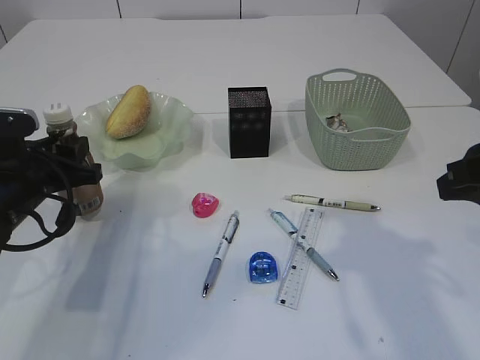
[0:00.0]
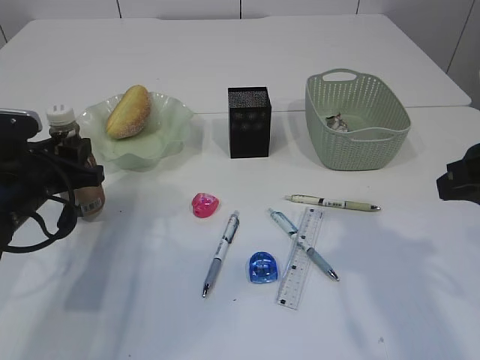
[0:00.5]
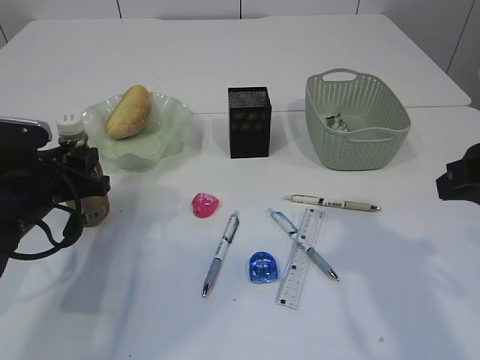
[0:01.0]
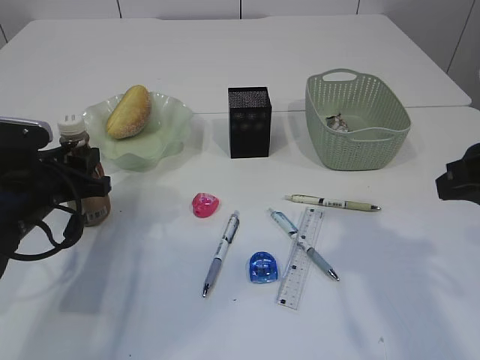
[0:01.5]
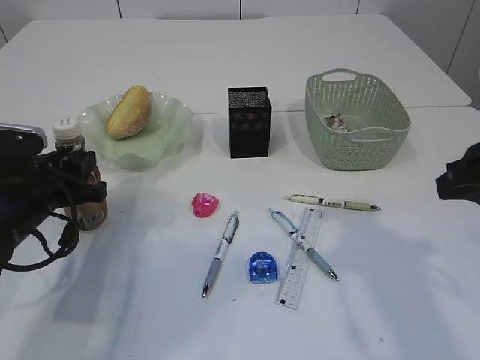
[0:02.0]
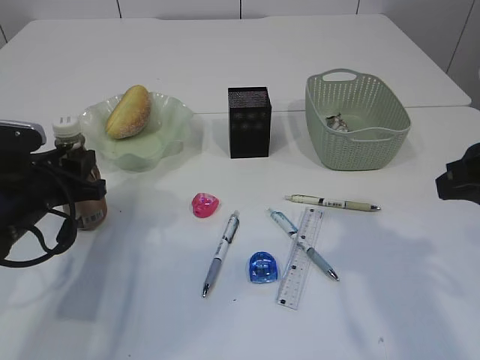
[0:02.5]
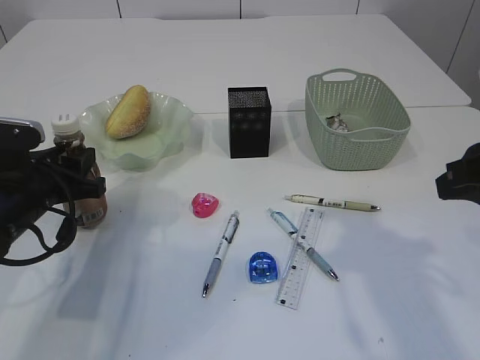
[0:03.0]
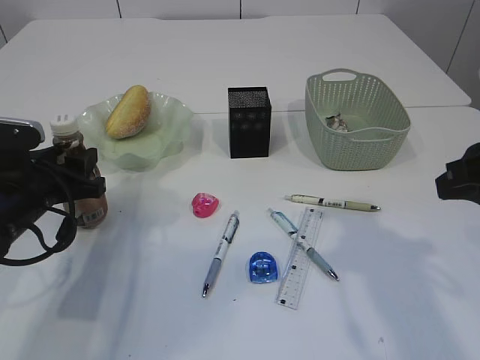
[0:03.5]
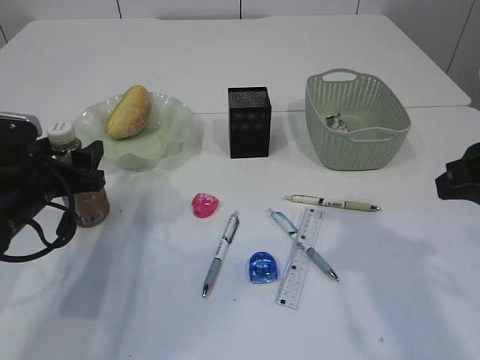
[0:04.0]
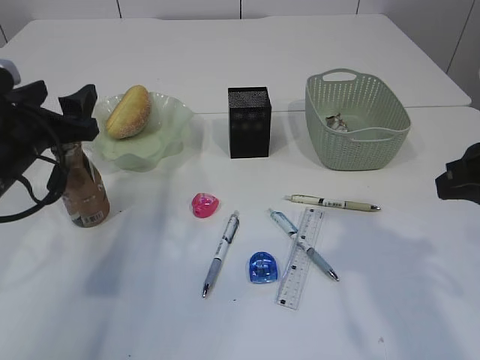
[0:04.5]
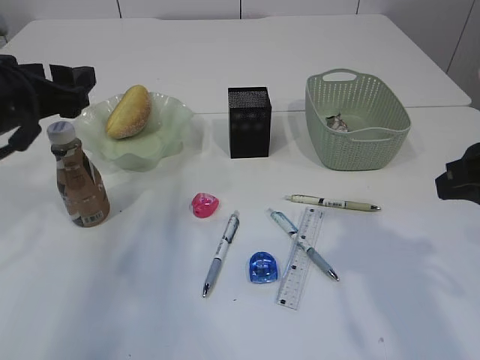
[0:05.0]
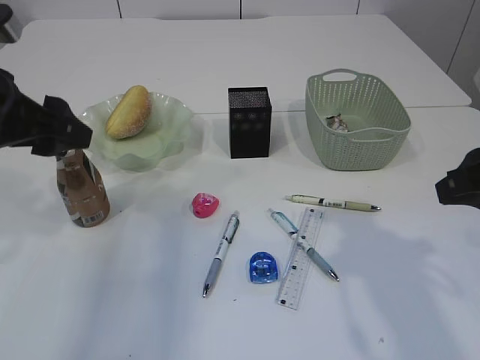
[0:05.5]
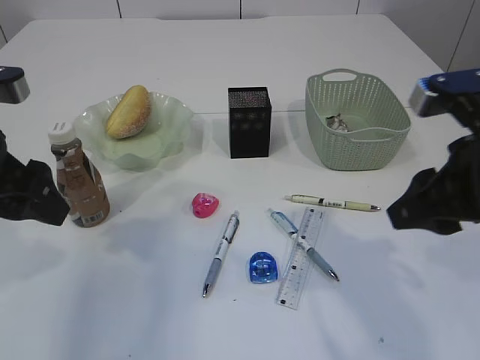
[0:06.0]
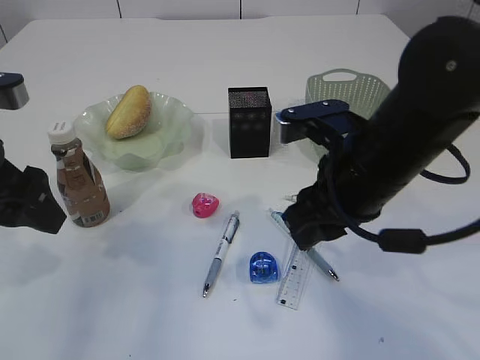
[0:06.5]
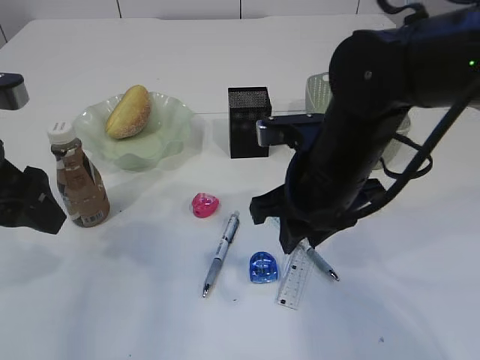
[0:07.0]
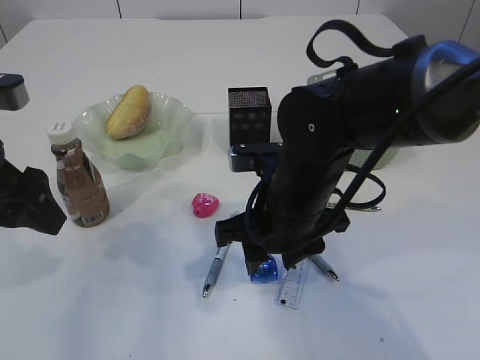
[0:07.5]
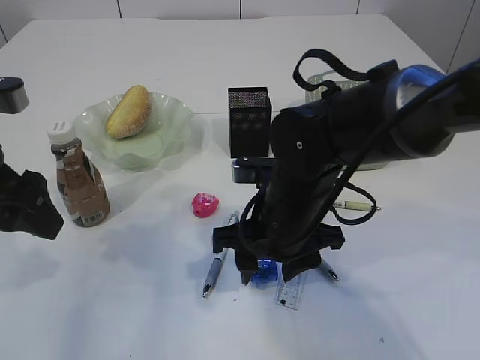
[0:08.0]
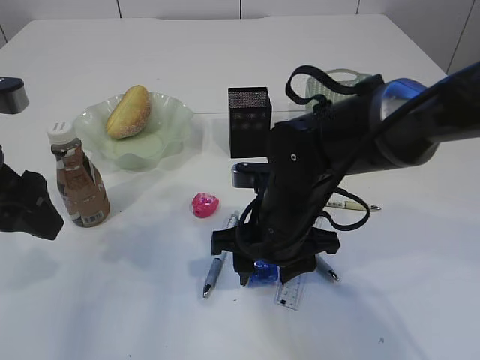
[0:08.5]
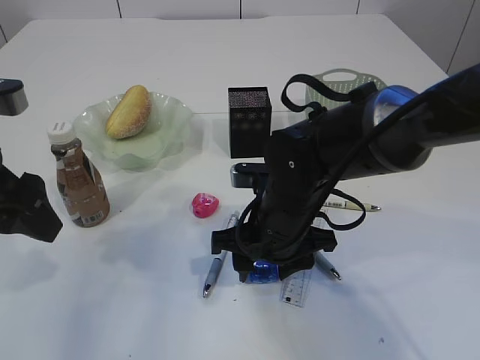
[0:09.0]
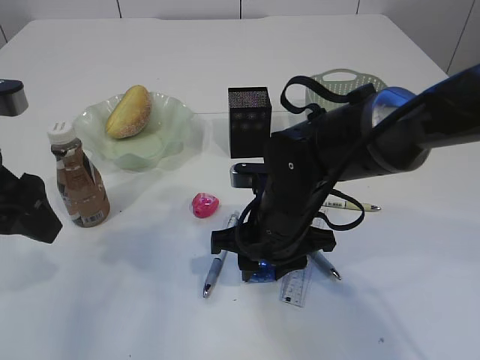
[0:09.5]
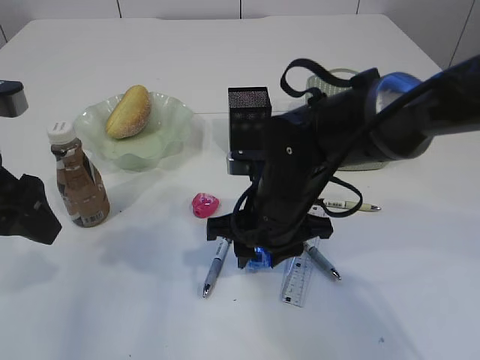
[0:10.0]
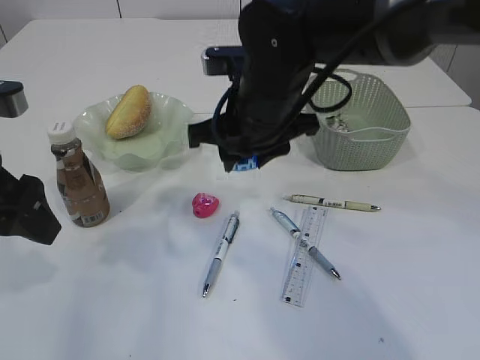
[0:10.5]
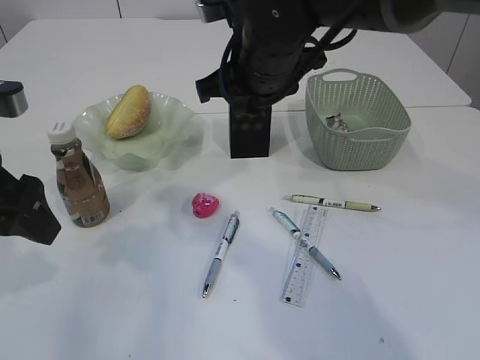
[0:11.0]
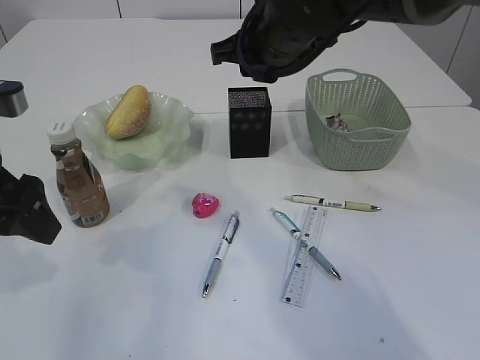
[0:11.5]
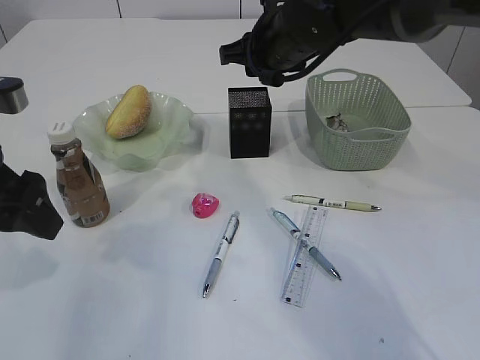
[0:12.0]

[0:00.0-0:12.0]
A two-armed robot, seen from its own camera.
Step, 0.0 to 5.0 s: Place the bottle.
Step, 5.5 to 10.0 s: Pick up the blue pencil sharpener.
0.0 to 2.0 s: The grippers make only small movements.
2.0 to 4.0 s: The left gripper opens up.
4.0 to 6.0 s: The left gripper travels upward and backward by approximately 15 cm.
6.0 to 8.0 s: The right gripper goes roughly 20 cm to the left, downward and forward.
8.0 to 10.0 s: There are only small adjustments of the grippers.
10.0 to 12.0 s: The right gripper heads forward and upward, covering roughly 20 cm.

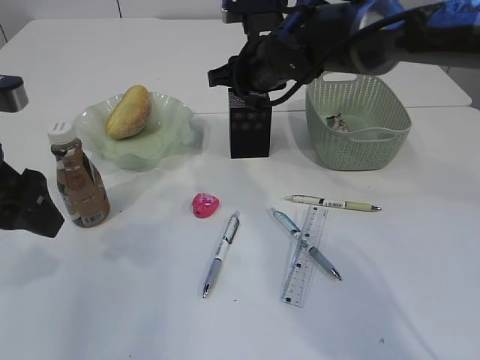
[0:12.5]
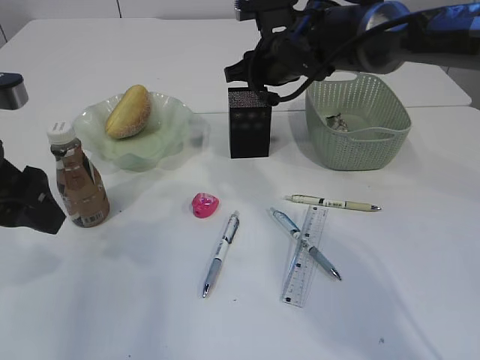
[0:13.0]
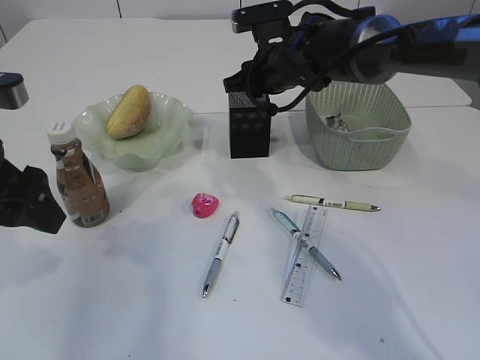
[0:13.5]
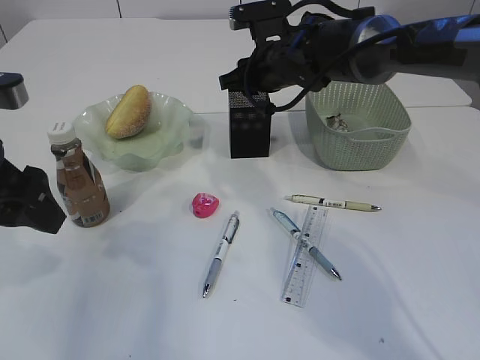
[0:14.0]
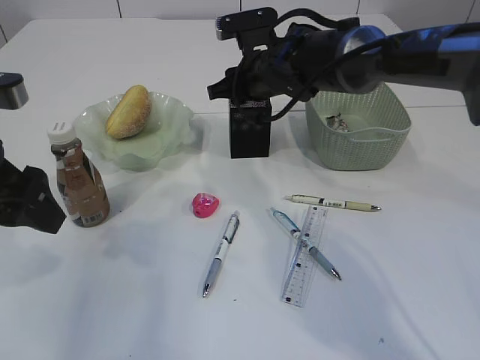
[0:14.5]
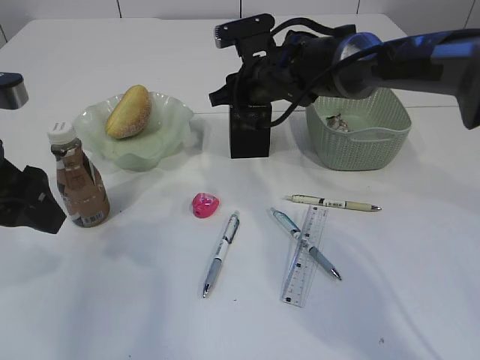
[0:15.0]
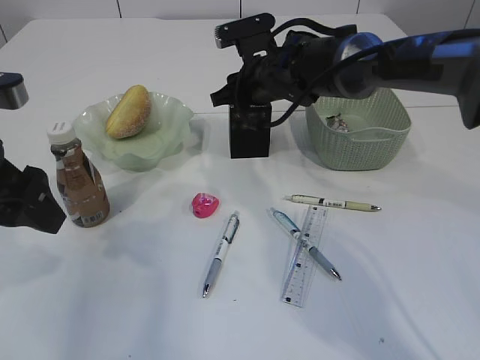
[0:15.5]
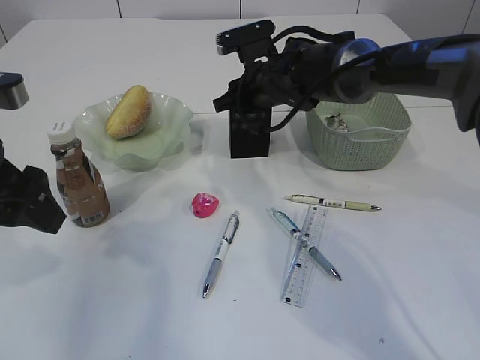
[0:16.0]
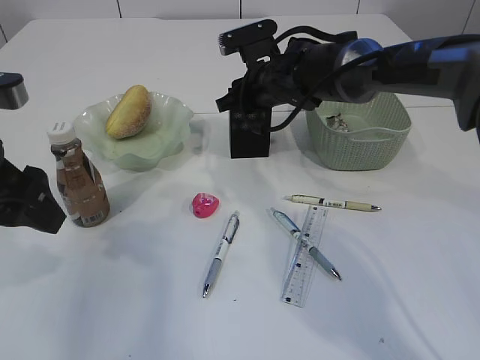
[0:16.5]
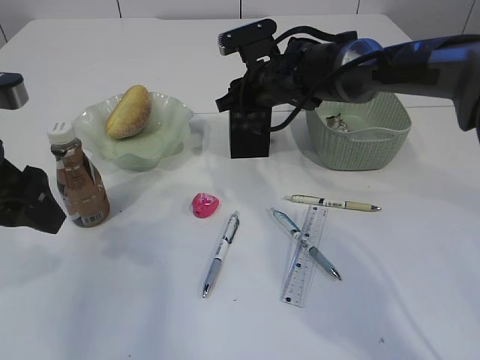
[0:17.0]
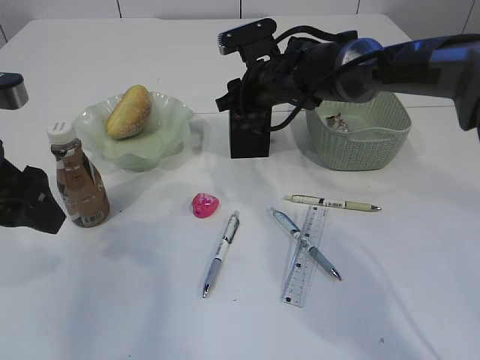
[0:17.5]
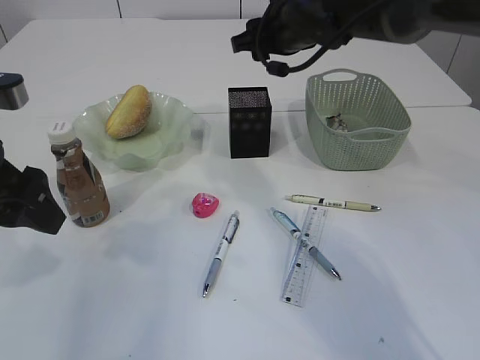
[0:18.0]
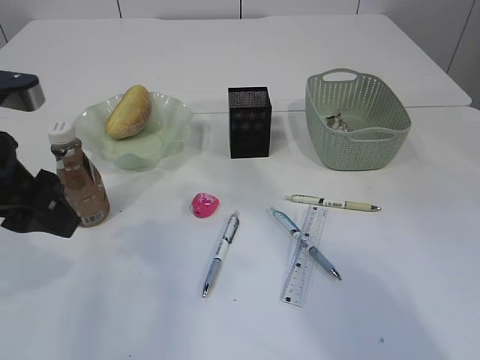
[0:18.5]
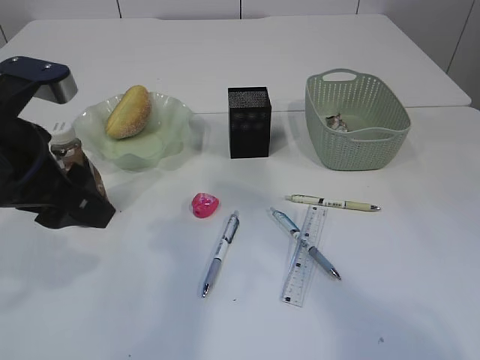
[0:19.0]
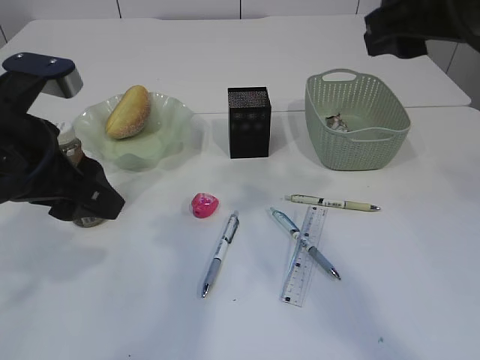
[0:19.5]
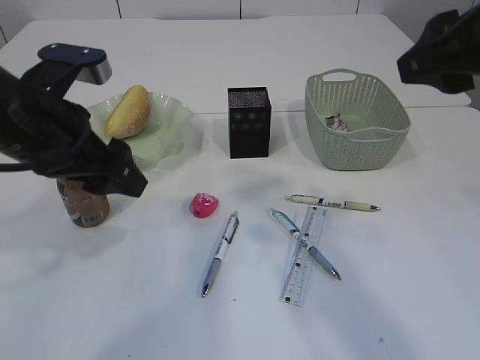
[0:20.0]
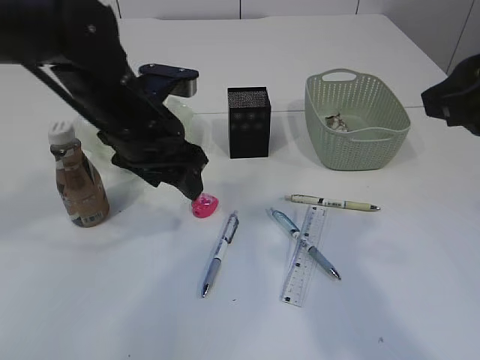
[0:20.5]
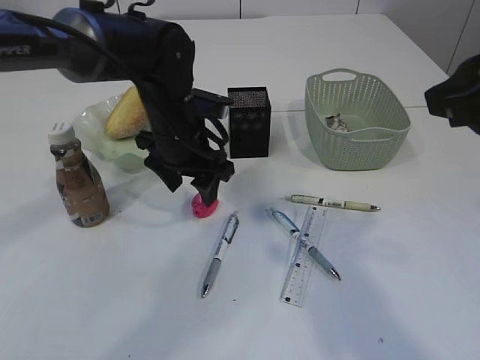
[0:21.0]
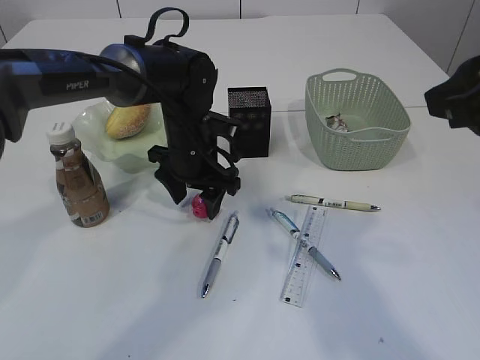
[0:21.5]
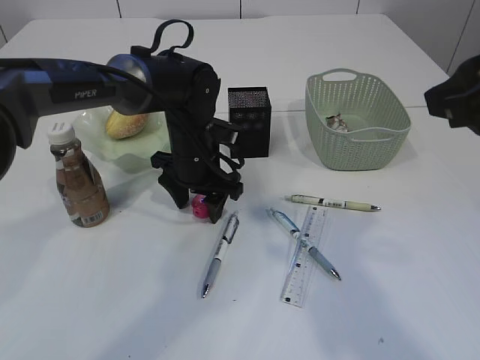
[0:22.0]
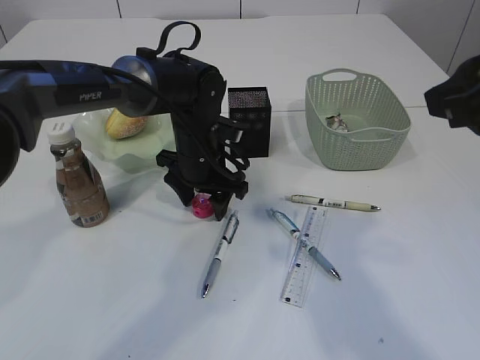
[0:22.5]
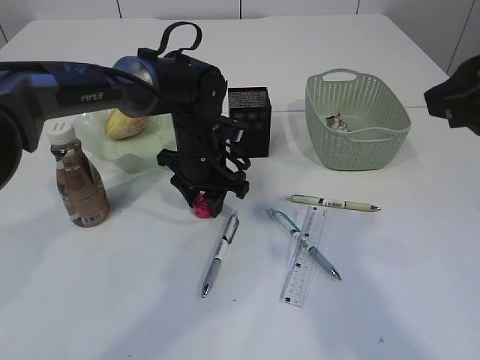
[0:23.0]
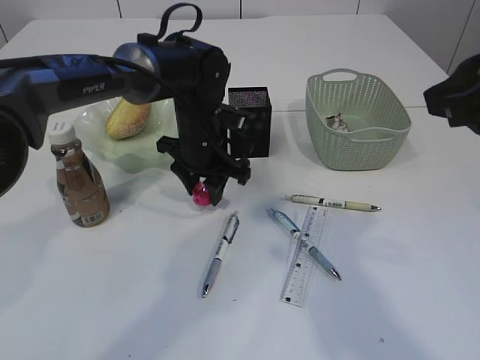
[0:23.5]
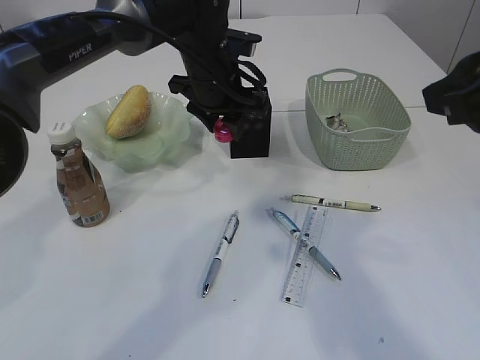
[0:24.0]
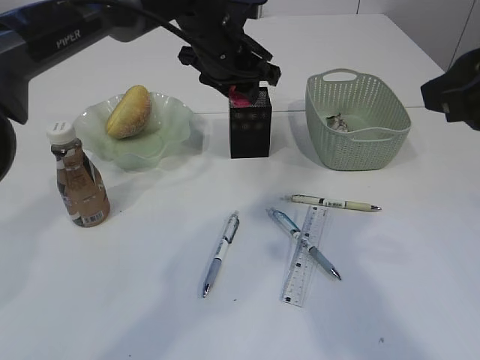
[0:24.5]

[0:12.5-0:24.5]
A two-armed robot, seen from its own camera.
Step, 12.5 to 17.5 s: Place the blue pencil sharpener into the pen holder.
Step, 18.0 to 23.5 s: Pick up the red pencil sharpener.
12.5 to 16.5 s: The grippers stay close to where they were, moving slightly.
16.5 to 18.5 s: The right gripper goes some 20 cm upward.
18.5 to 20.5 s: The right gripper moves backward, about 20 cm, while the left gripper shifts some 15 cm to the right and forward.
20.5 to 22.5 s: The left gripper travels downward, forward and to the right by approximately 15 cm.
22.5 to 24.5 s: The left gripper travels upward by about 15 cm, and closes its fingers.

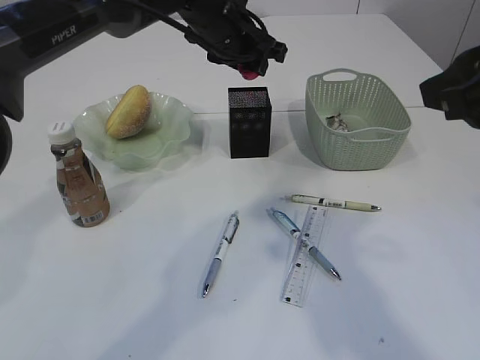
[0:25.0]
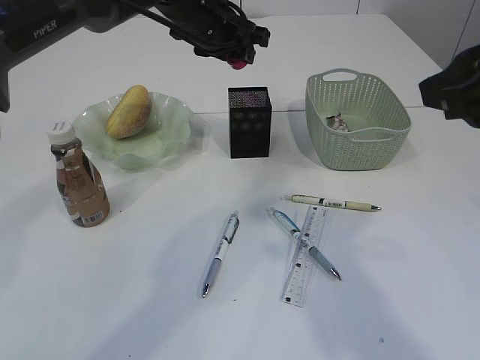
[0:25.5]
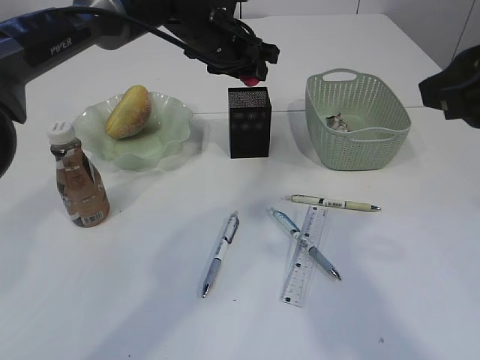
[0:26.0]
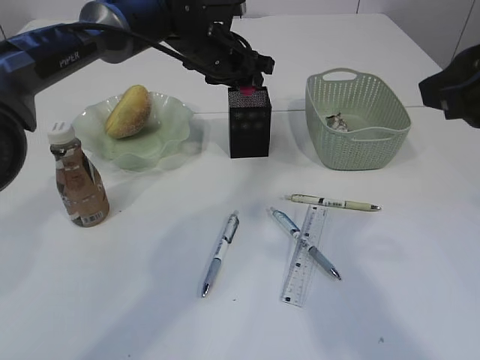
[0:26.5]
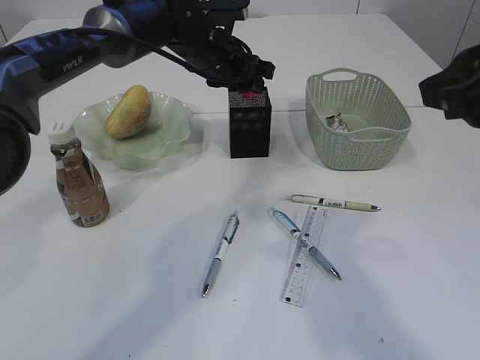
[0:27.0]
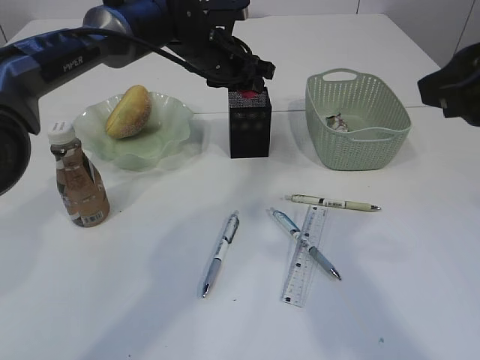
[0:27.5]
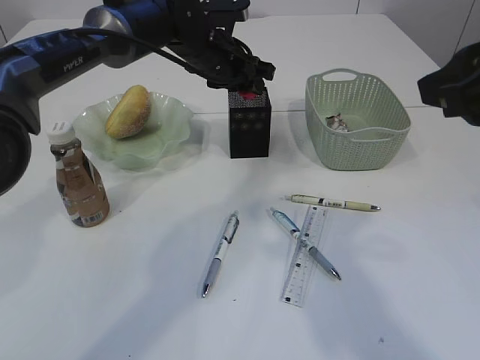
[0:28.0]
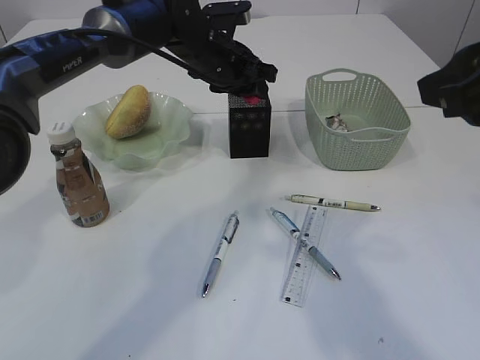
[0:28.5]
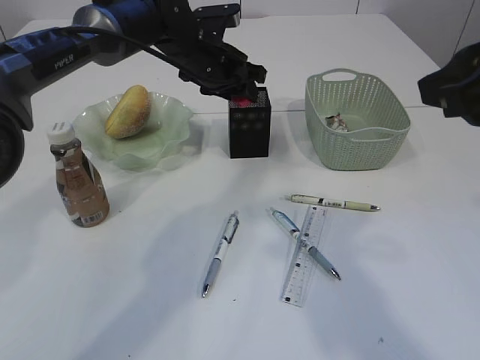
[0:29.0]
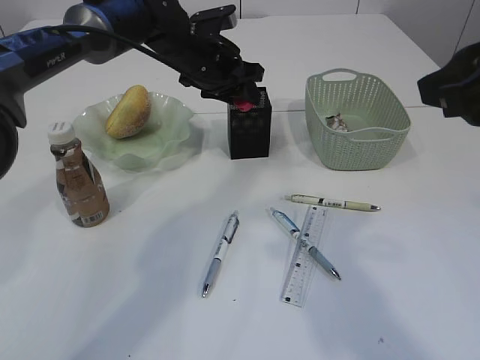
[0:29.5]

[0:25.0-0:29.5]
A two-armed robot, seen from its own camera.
25.0 to 27.0 s: The left gripper changes place by about 5 cm.
27.0 to 29.5 s: The grippers stay close to where they were, moving slightly.
